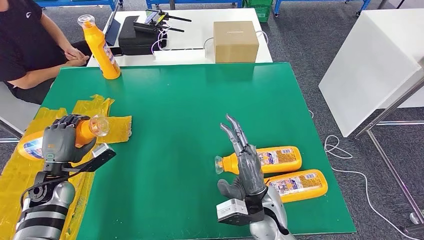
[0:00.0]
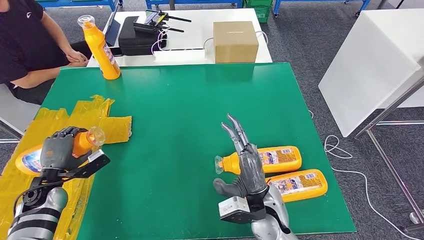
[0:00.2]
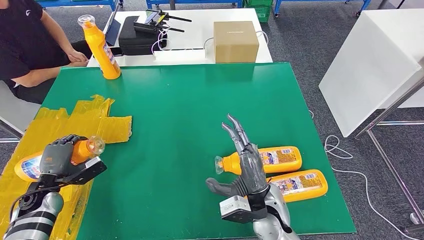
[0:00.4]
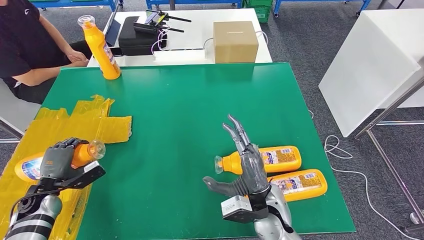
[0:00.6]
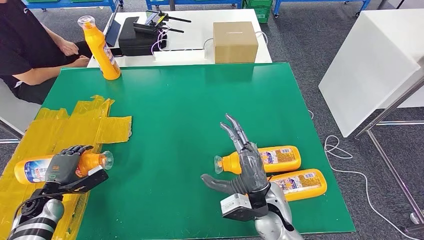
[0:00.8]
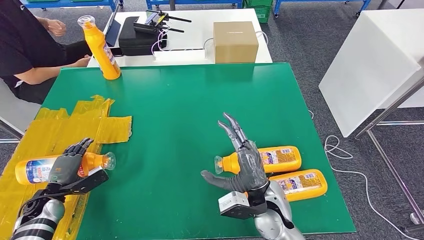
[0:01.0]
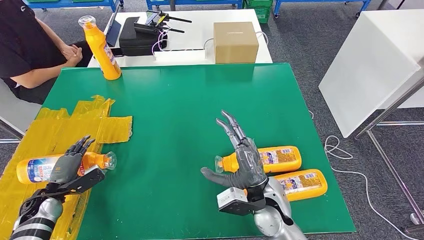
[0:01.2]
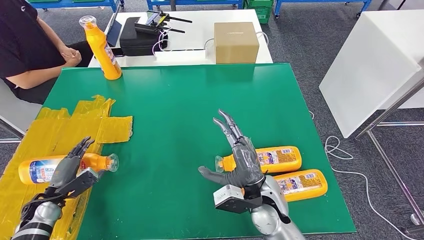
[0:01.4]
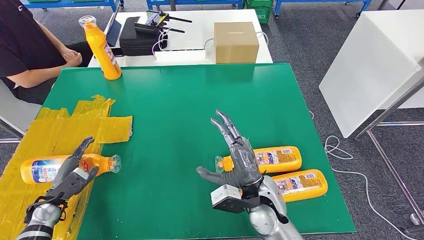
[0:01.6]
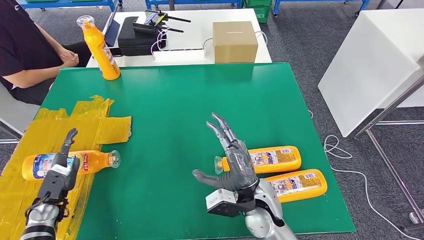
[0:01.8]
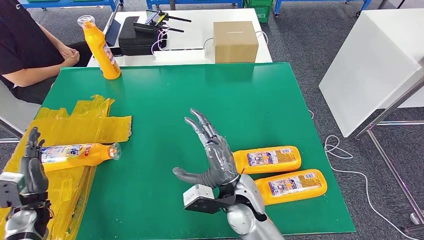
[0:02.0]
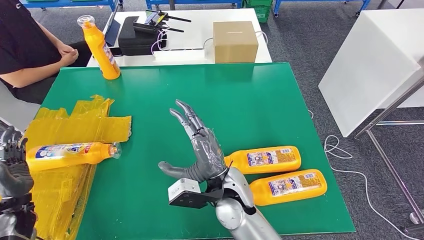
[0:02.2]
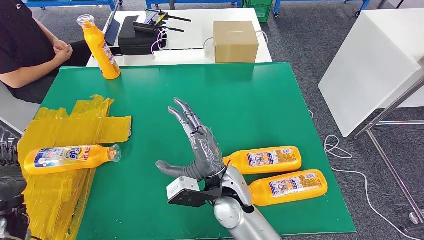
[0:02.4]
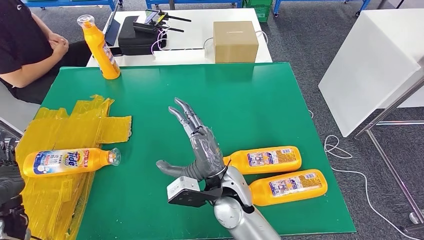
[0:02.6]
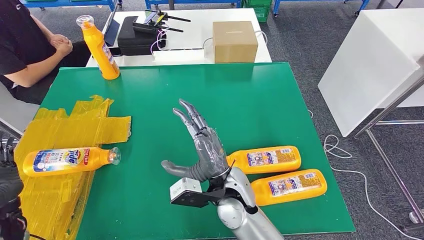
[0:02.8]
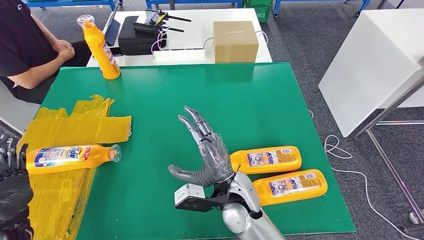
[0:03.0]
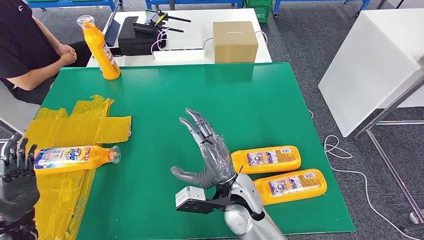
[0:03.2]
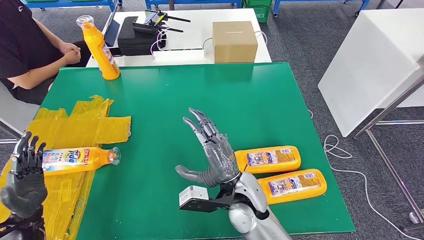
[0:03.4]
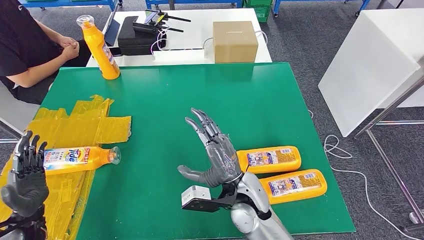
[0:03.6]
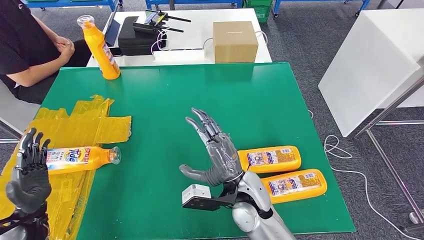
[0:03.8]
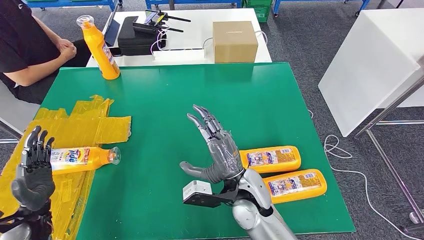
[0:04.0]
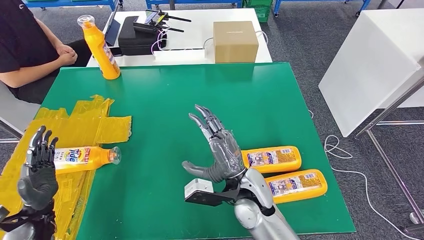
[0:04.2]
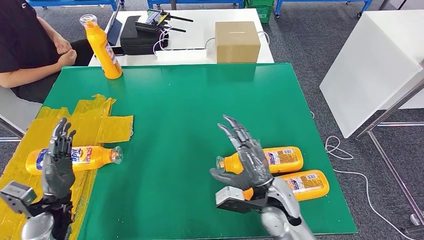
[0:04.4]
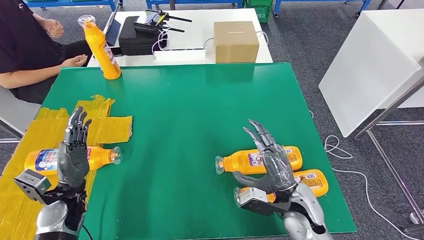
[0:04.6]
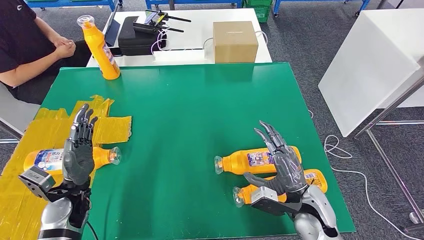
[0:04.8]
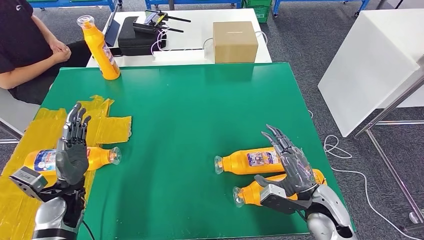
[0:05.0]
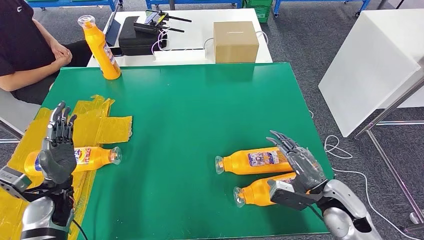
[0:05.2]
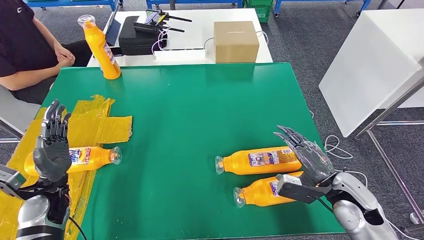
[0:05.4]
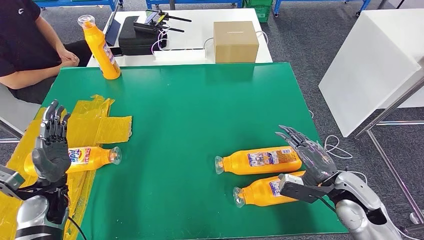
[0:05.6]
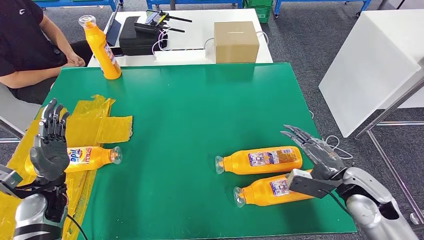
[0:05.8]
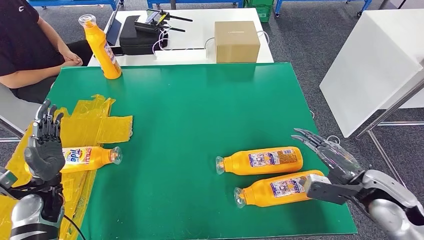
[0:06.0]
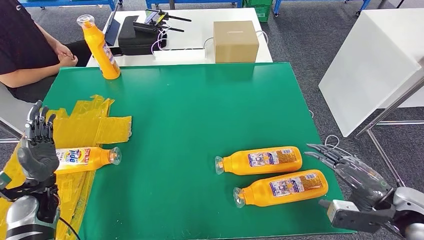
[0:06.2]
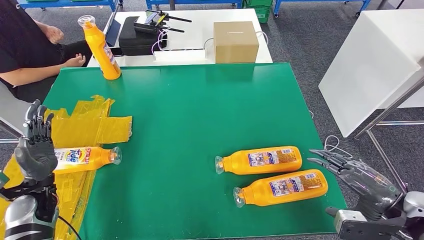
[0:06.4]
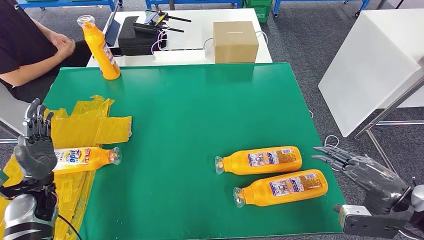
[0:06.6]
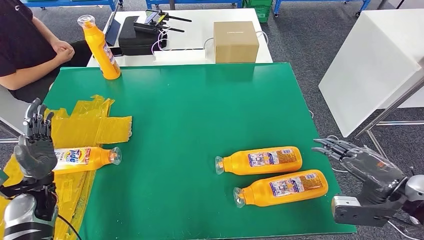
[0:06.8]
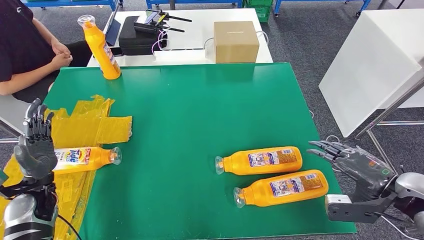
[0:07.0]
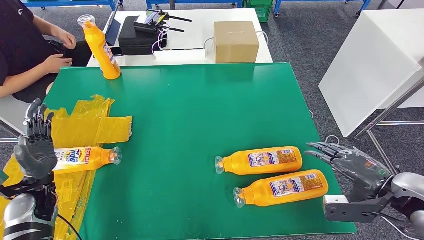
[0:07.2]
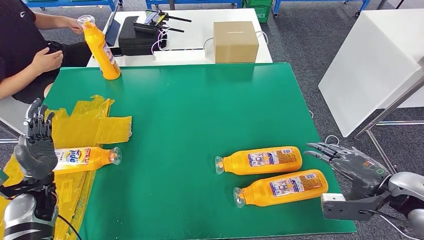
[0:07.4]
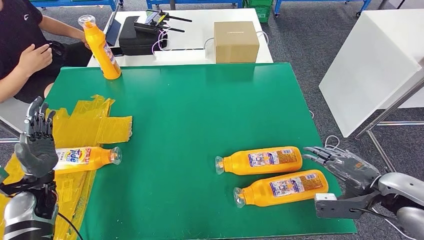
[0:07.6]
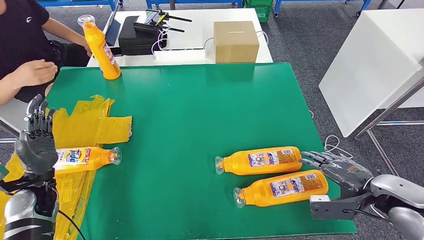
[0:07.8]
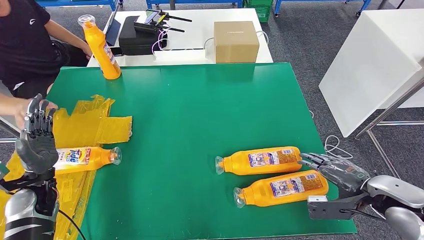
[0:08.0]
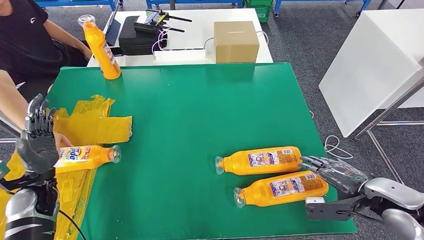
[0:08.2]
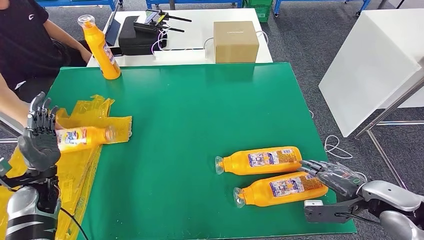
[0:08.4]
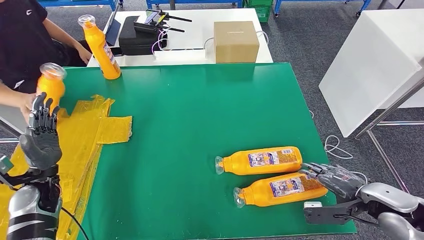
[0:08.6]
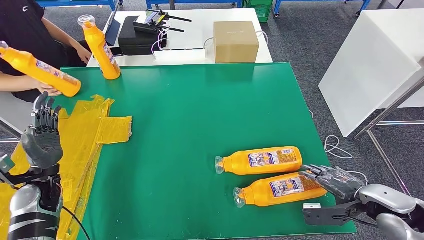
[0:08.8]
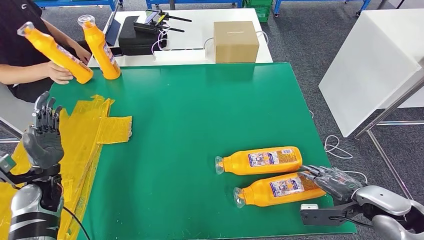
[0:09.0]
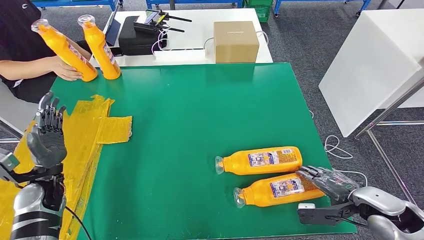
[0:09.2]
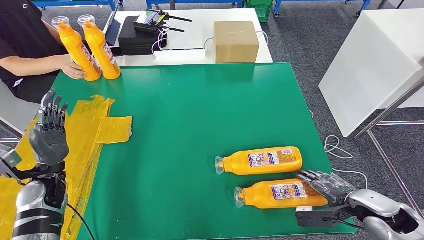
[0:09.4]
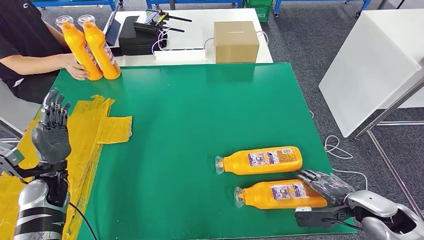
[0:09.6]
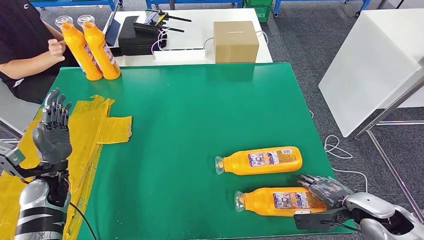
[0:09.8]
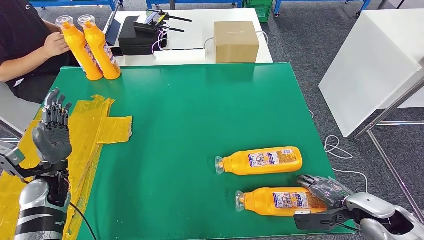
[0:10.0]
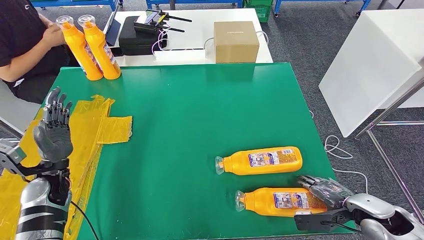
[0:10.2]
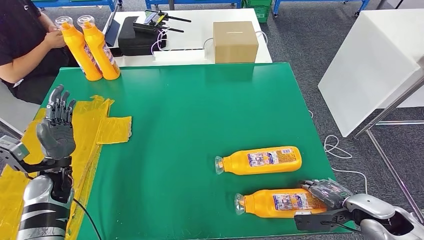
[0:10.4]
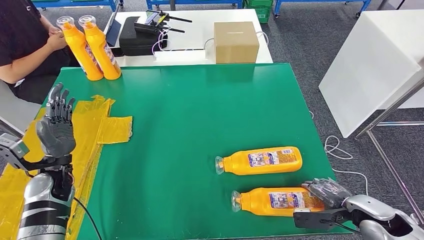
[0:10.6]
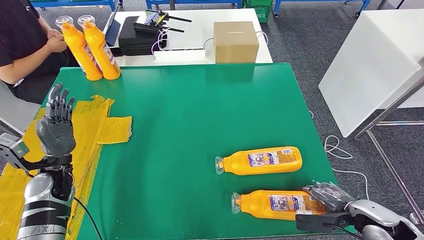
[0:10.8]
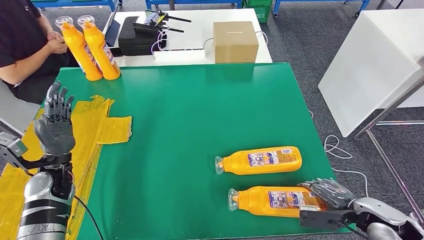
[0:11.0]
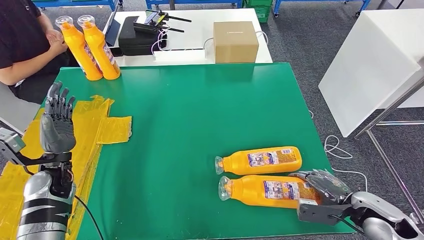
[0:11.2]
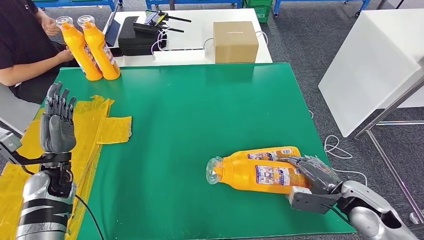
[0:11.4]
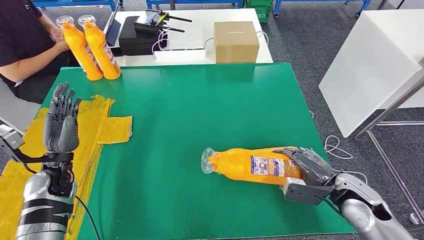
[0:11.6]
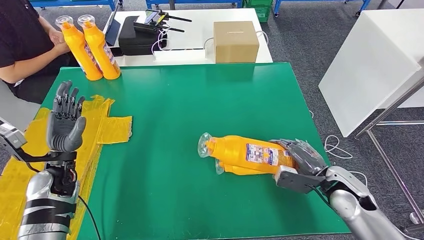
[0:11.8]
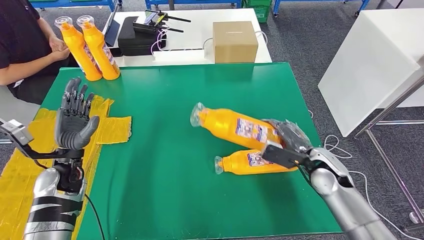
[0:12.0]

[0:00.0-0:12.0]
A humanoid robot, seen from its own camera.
0.0 to 1.6 s: The left hand shifts approximately 10 cm downward.
1.6 to 3.0 s: The right hand is displaced to the left by approximately 5 cm. Meanwhile the left hand is displaced backward and upward by about 10 cm.
4.4 to 6.0 s: The right hand moves to the right, roughly 25 cm.
7.6 to 9.0 s: The right hand shifts about 5 cm downward.
9.0 to 10.4 s: The hands make only small movements.

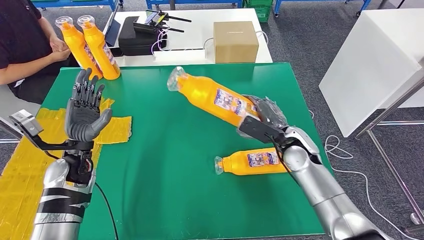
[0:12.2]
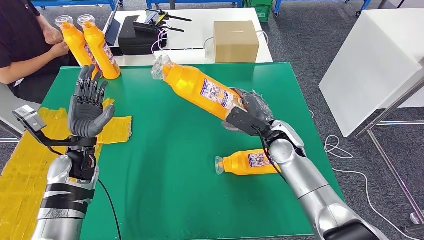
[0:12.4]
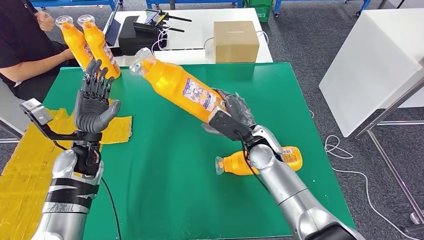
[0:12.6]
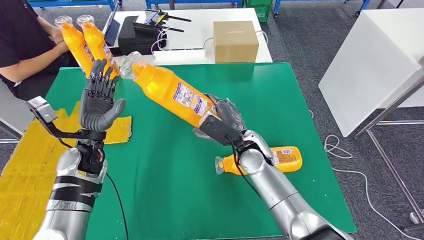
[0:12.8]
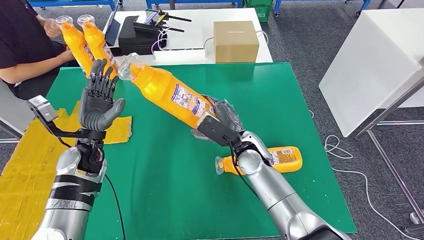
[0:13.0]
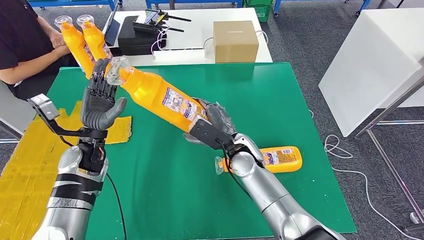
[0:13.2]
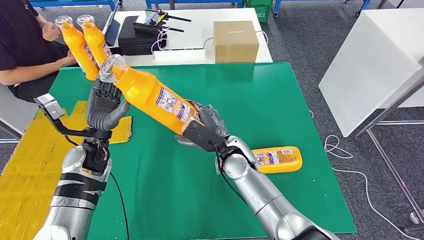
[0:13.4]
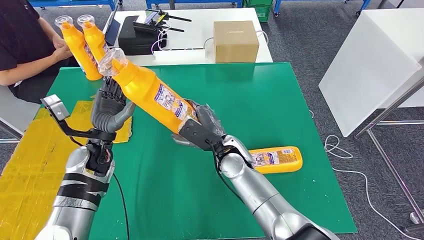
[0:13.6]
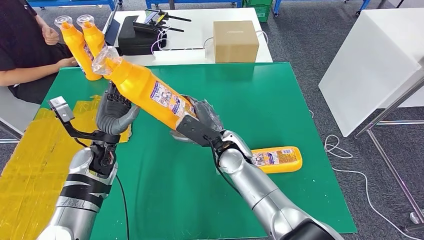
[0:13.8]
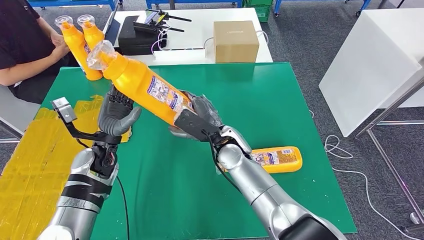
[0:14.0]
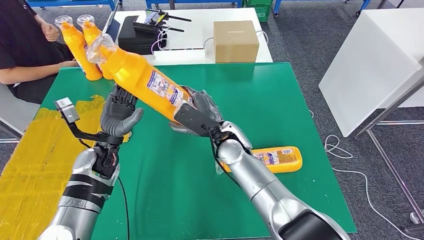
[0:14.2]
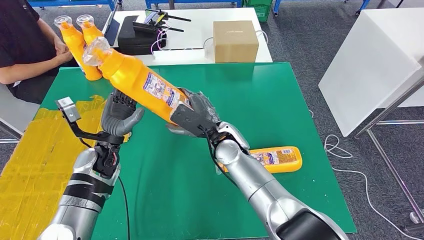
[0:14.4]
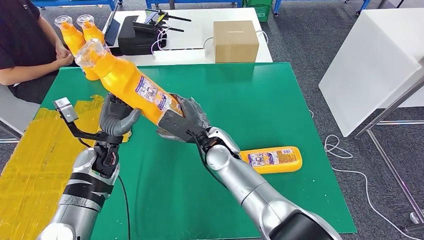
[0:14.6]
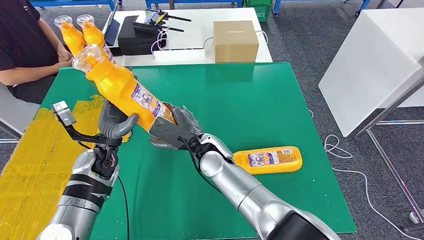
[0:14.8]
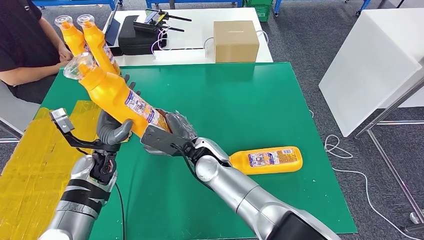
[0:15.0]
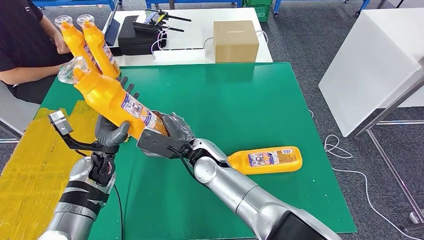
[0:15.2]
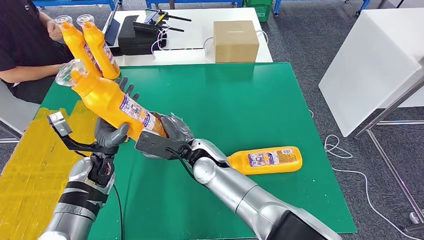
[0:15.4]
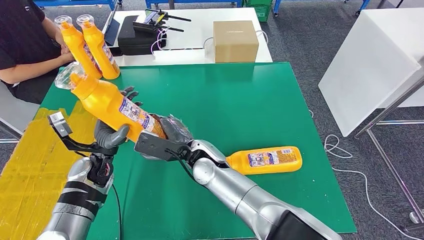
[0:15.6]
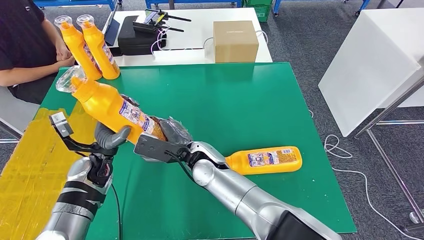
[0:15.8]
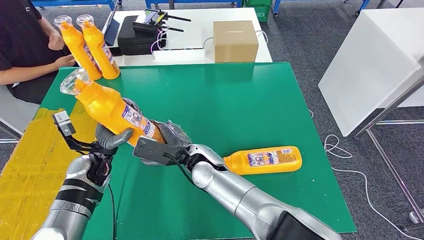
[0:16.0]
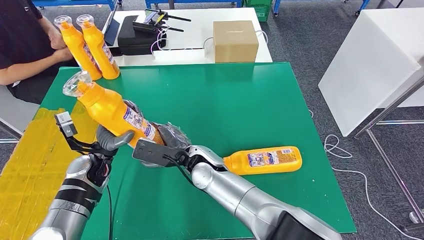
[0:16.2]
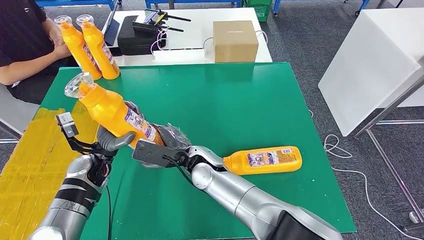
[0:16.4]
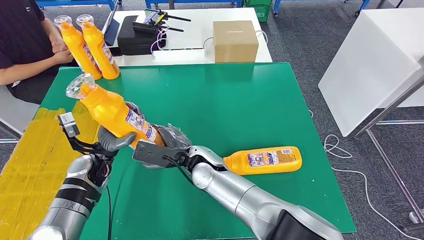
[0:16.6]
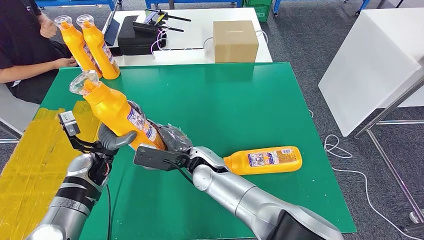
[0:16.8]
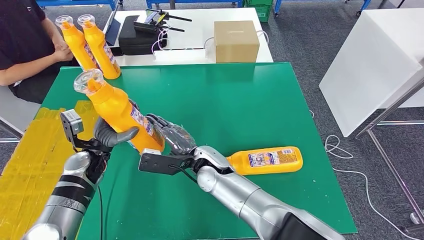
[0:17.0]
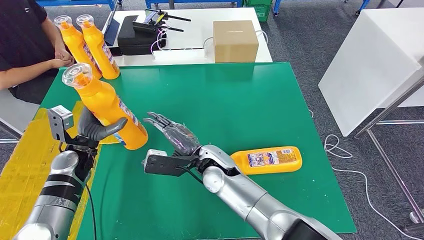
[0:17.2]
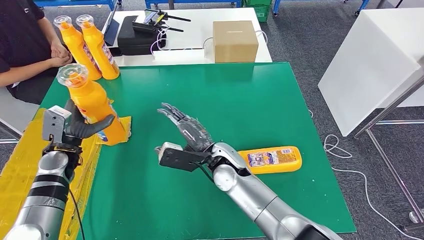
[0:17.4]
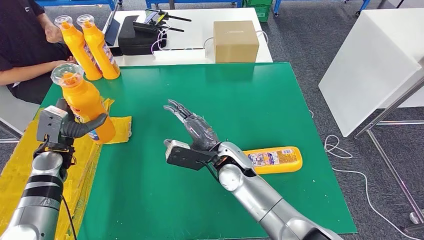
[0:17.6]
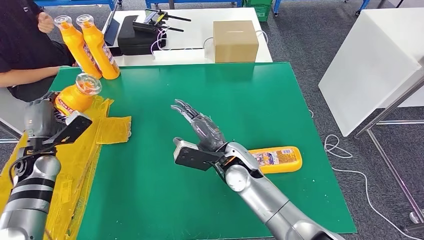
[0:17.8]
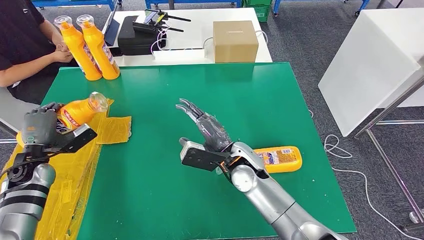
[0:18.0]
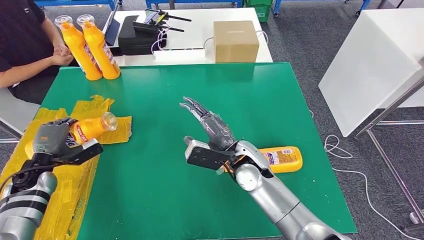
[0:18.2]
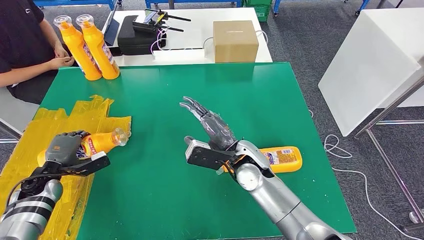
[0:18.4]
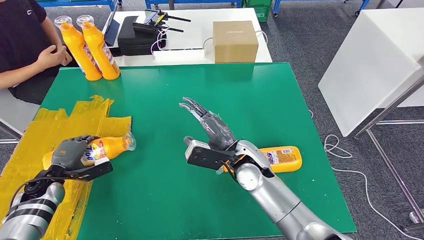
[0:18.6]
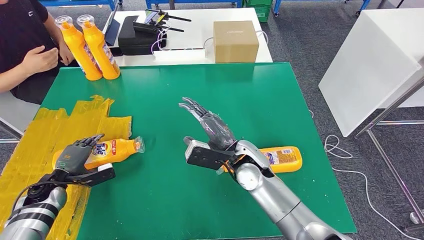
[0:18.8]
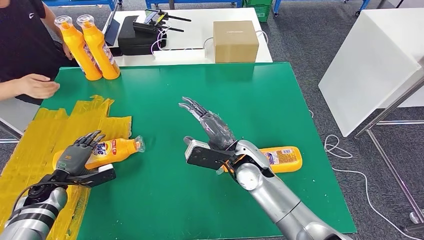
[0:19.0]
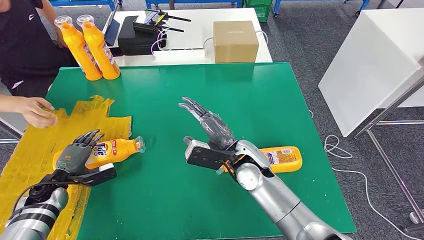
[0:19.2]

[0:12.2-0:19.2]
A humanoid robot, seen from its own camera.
13.6 to 15.0 s: The right hand moves to the left, roughly 5 cm.
15.0 to 16.4 s: The hands move only a little.
17.8 to 19.2 s: The left hand travels downward by about 10 cm.
